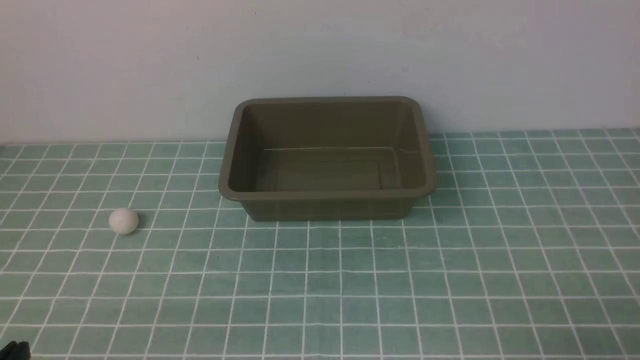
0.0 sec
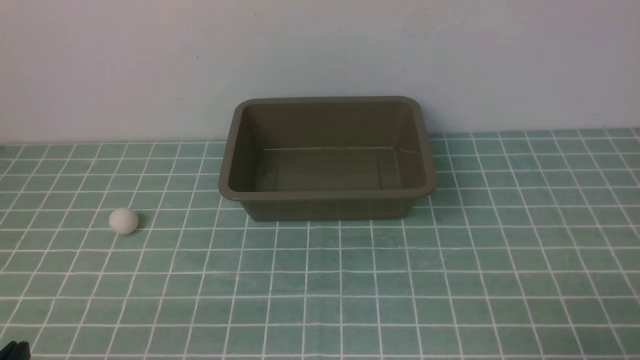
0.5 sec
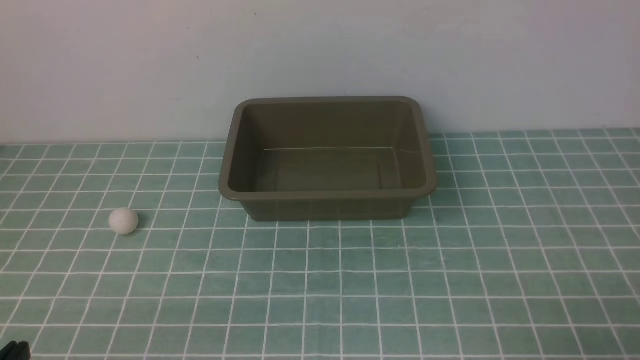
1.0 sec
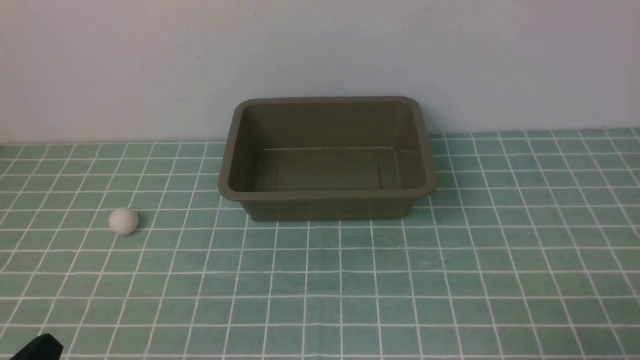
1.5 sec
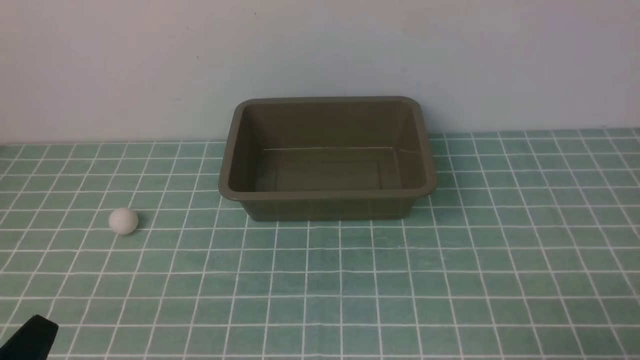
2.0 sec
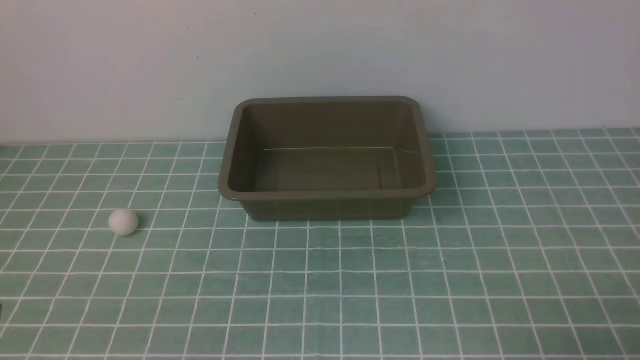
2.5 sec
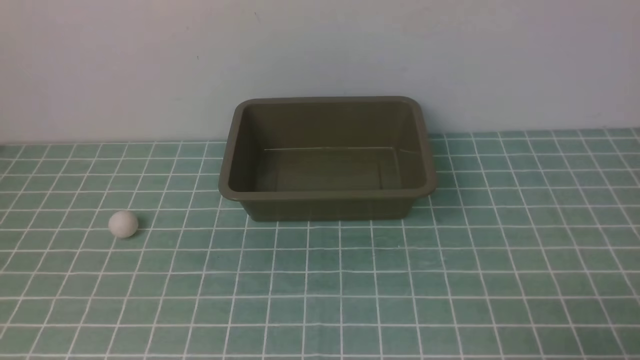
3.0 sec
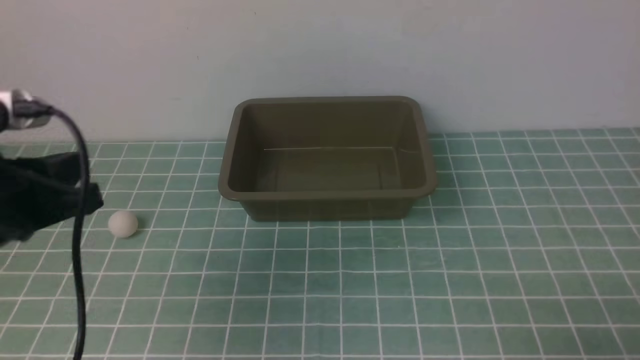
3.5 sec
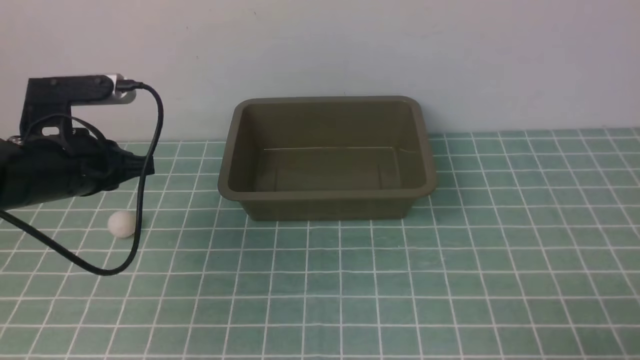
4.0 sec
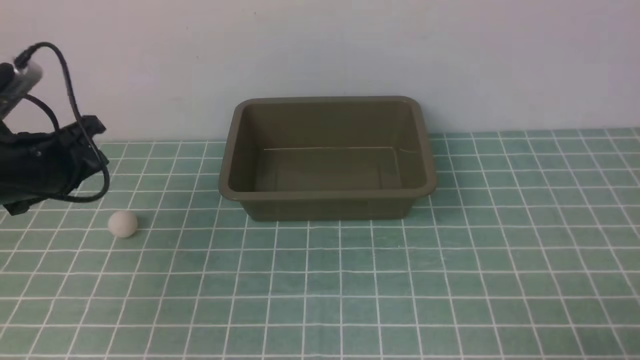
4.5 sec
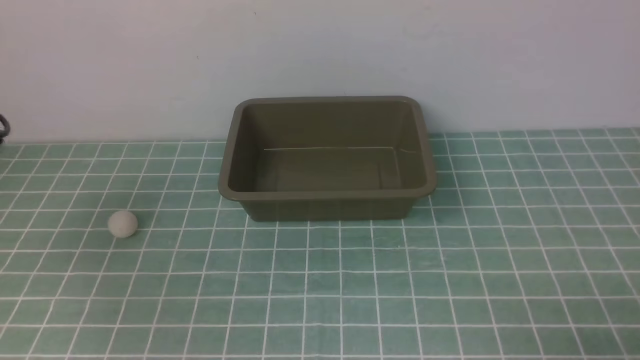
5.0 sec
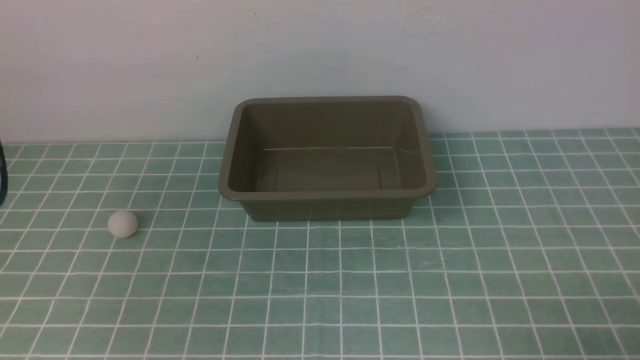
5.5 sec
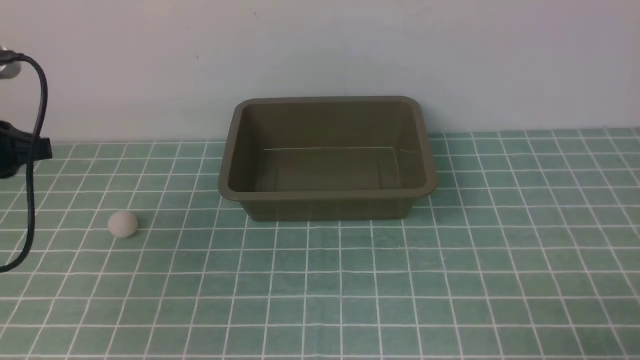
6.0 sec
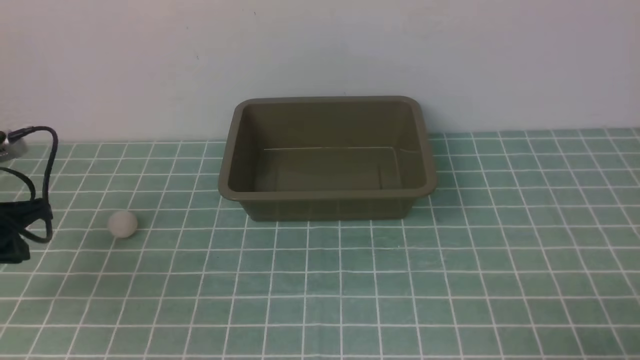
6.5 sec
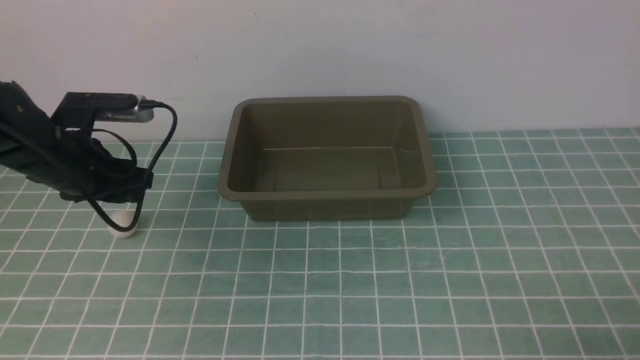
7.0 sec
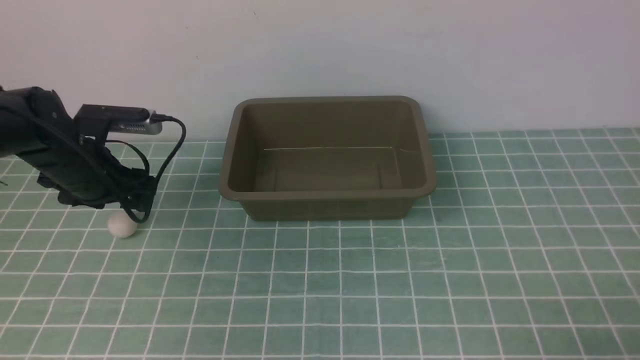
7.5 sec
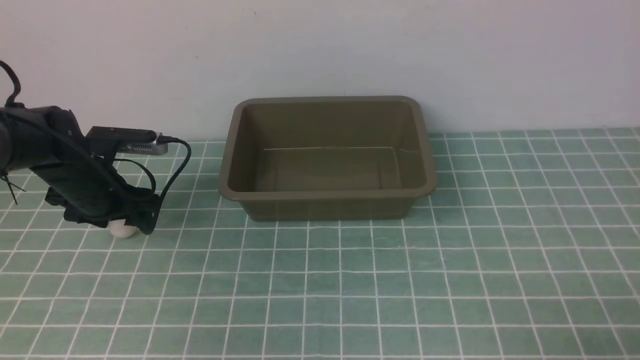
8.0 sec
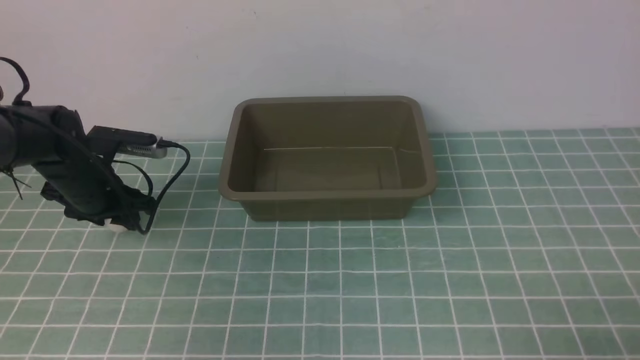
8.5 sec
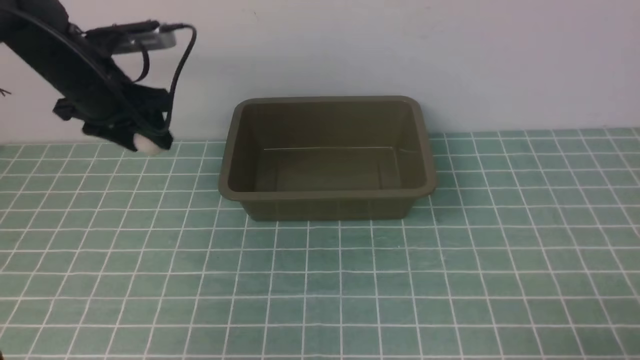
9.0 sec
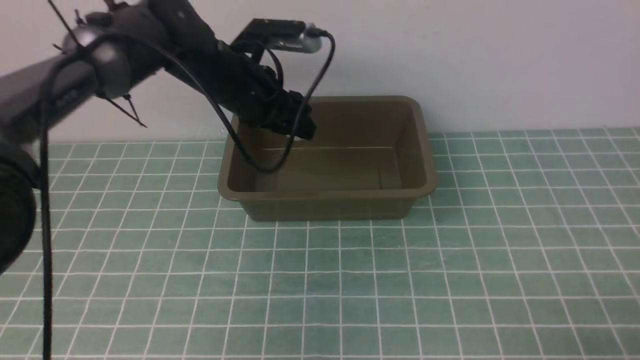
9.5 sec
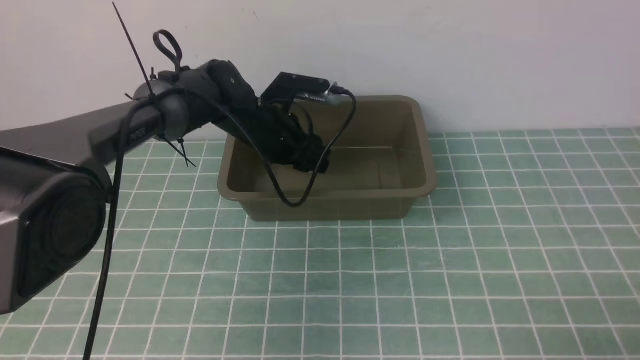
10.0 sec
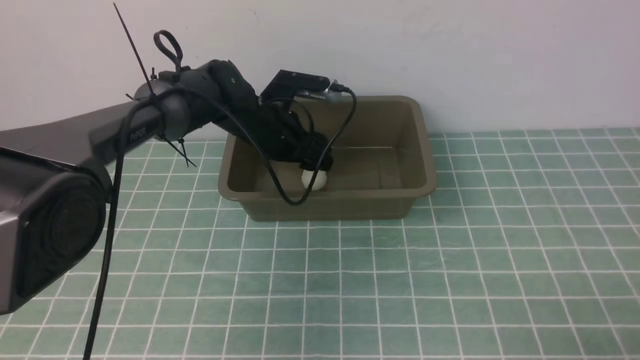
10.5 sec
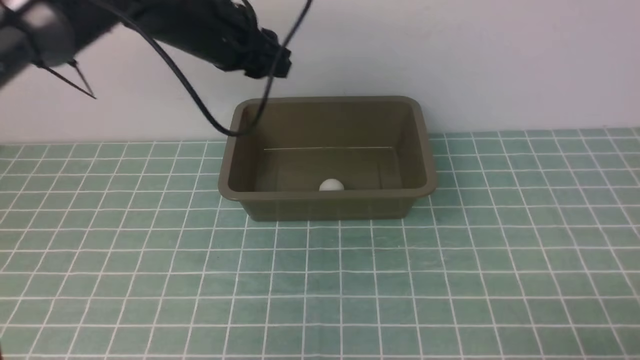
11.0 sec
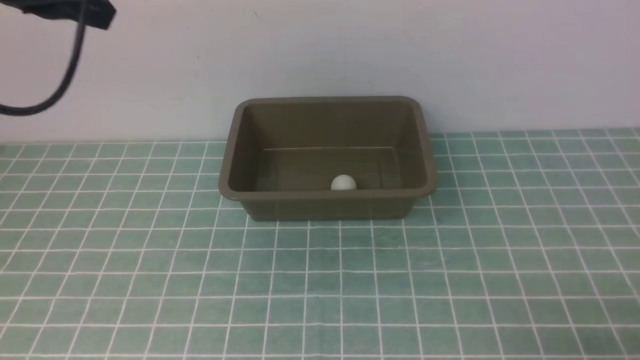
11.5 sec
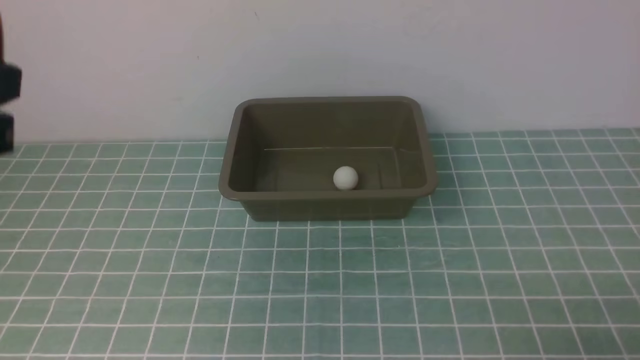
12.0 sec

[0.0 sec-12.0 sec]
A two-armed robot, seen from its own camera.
Step, 0.0 sec to 8.5 sec: use the left arm to clamp the table tennis ball closest to it.
Step, 9.0 sec to 10.5 sec: use the left arm to put the table tennis ball into the box.
2.0 sec to 4.0 sec: The left gripper is displaced forward by roughly 25 cm.
4.0 sec to 6.0 sec: The left gripper shifts some 5 cm to the left.
6.0 sec to 8.0 sec: The left gripper moves downward and forward, approximately 15 cm, and opens its fingers.
8.0 sec to 10.0 sec: The left gripper shifts roughly 20 cm to the right.
10.0 sec to 12.0 sec: The left gripper travels backward, upward and to the left by approximately 40 cm, and closes up.

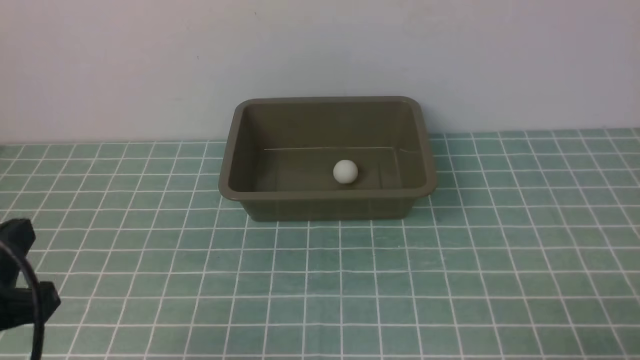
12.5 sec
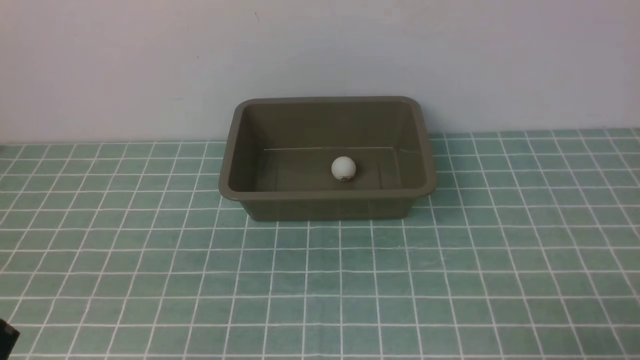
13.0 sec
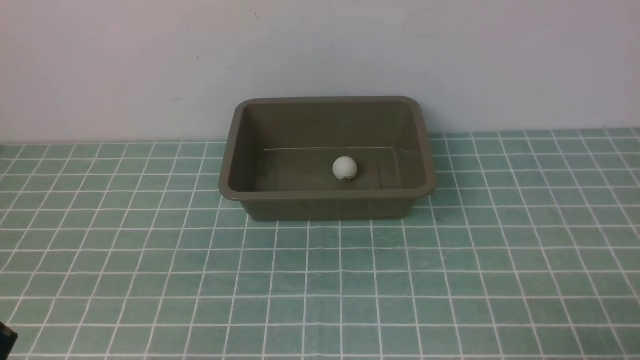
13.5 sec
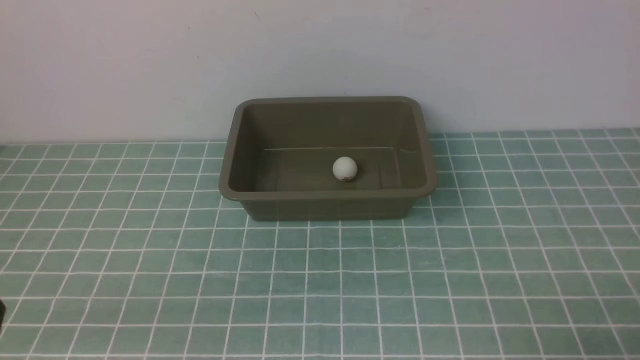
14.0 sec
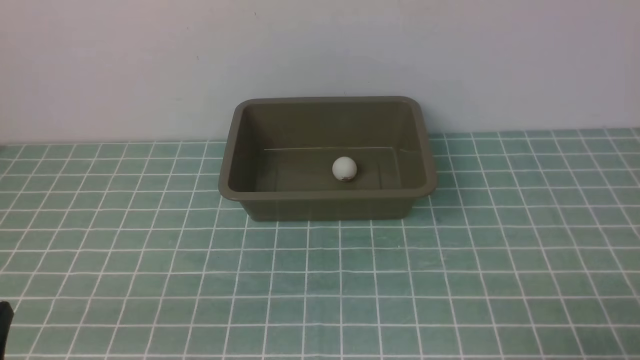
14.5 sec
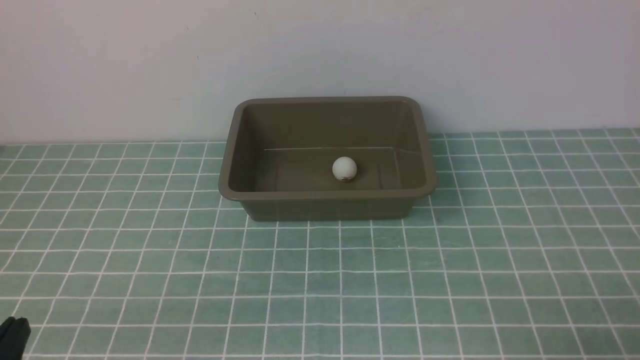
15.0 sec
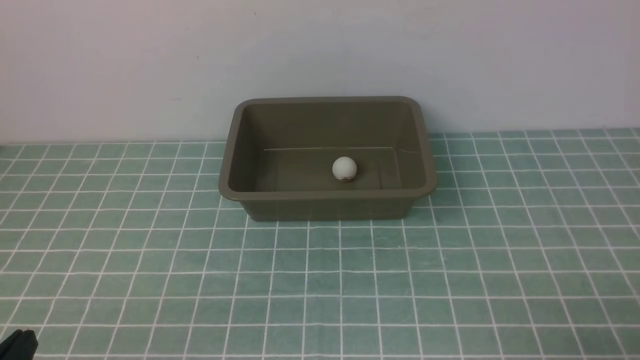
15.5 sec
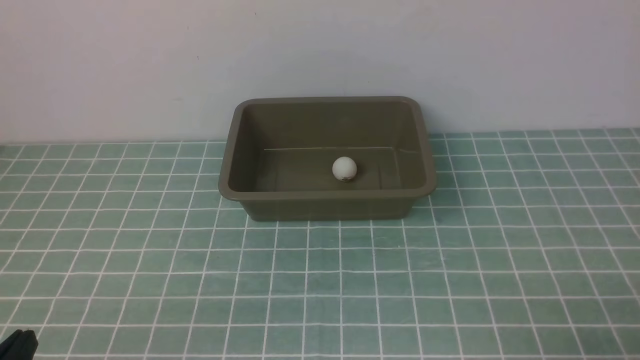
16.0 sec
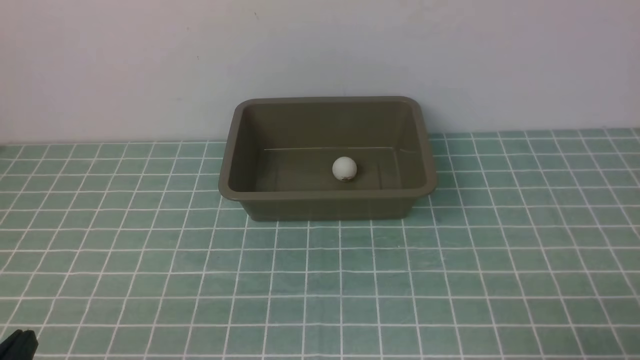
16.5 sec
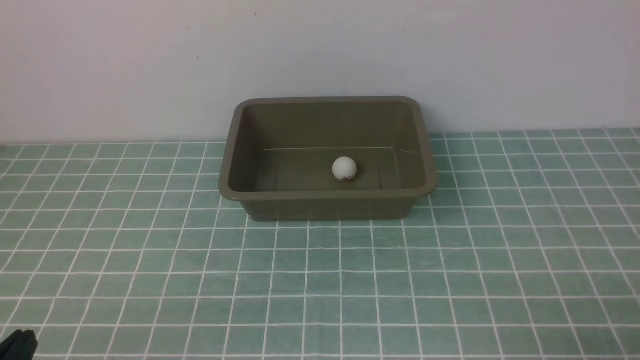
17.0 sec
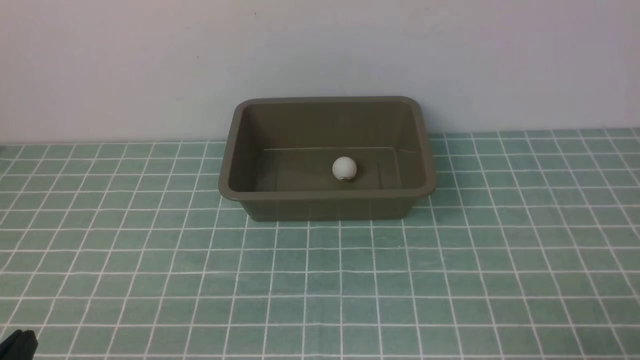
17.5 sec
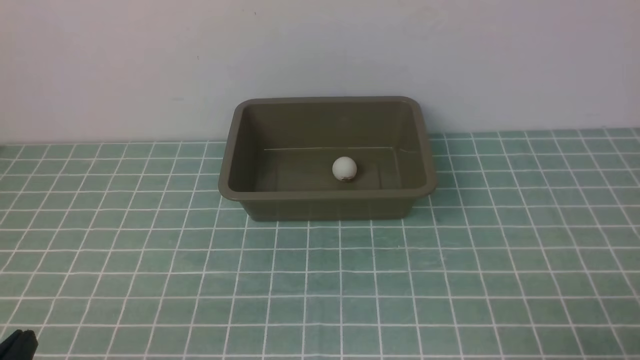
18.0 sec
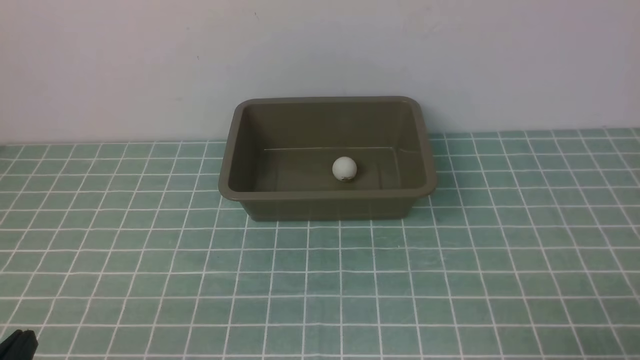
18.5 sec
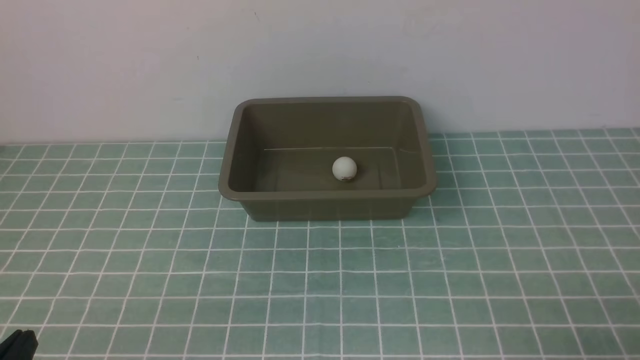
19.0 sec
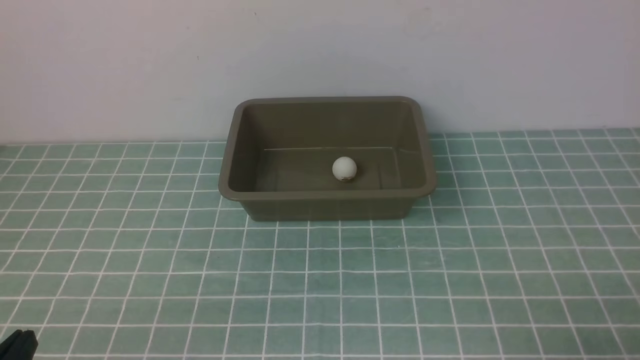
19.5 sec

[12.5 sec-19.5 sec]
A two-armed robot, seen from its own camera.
12.5 sec to 14.5 sec: The left gripper shifts about 5 cm downward.
16.0 sec to 19.5 sec: Both grippers stay put.
